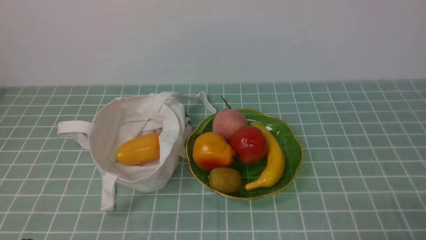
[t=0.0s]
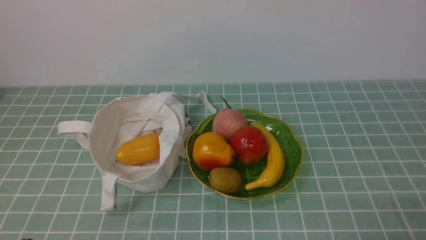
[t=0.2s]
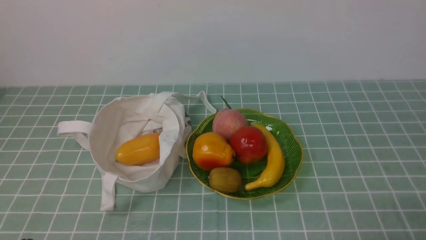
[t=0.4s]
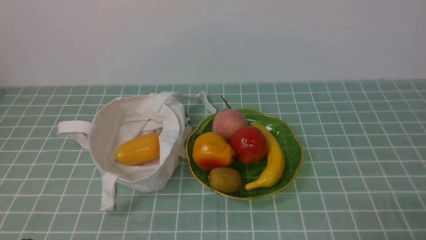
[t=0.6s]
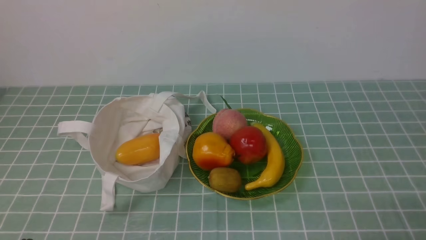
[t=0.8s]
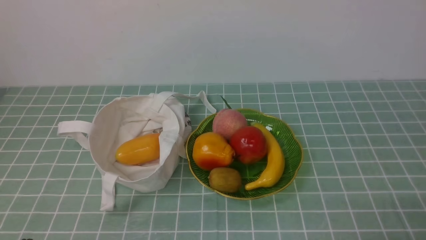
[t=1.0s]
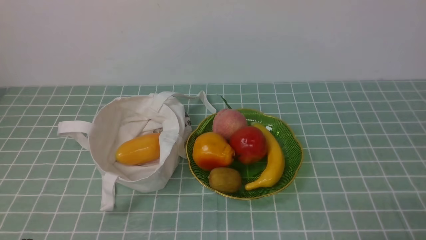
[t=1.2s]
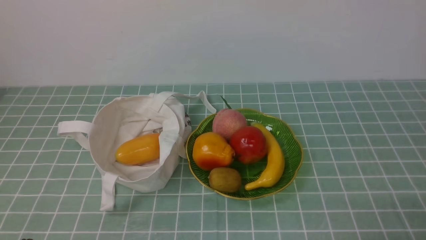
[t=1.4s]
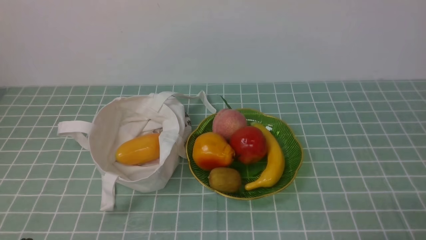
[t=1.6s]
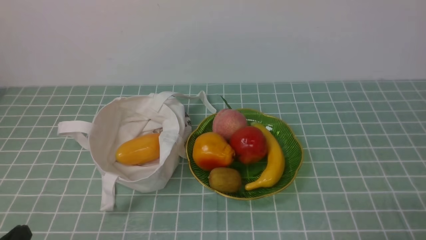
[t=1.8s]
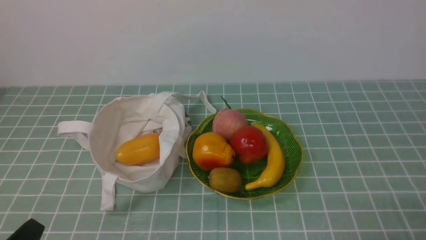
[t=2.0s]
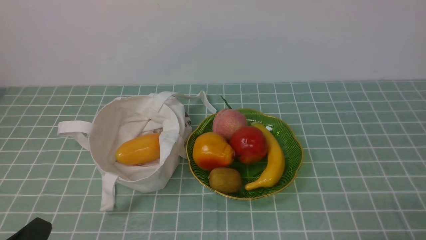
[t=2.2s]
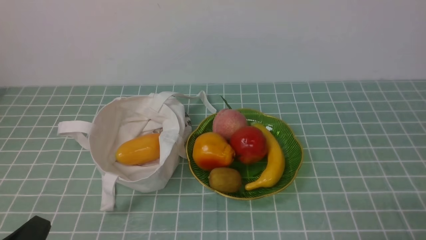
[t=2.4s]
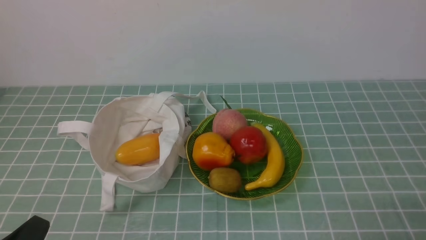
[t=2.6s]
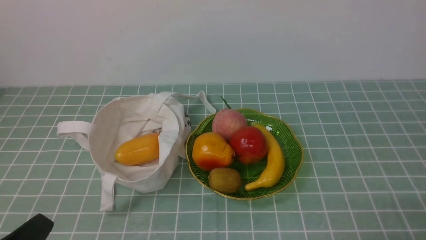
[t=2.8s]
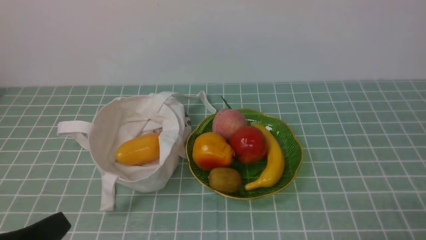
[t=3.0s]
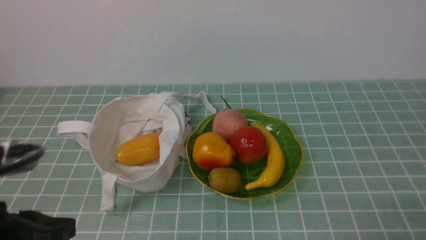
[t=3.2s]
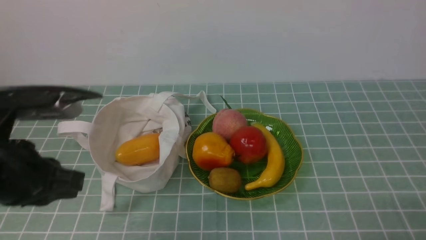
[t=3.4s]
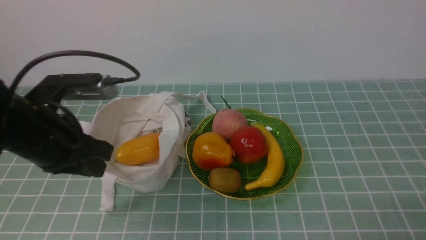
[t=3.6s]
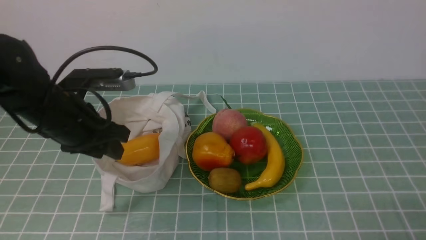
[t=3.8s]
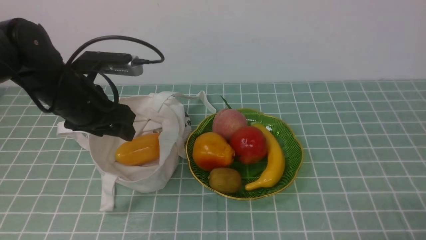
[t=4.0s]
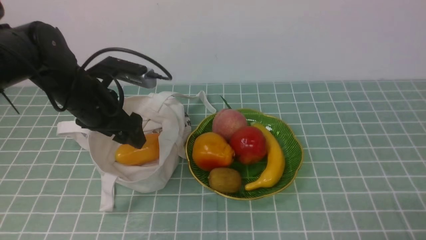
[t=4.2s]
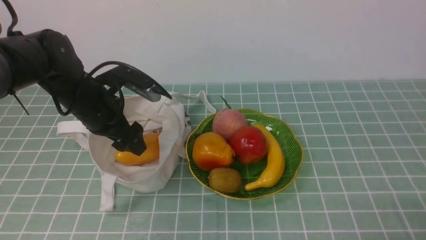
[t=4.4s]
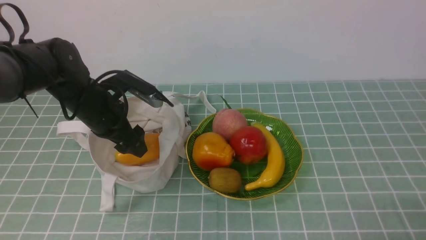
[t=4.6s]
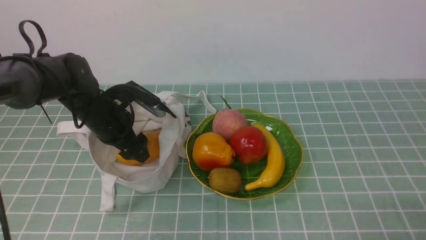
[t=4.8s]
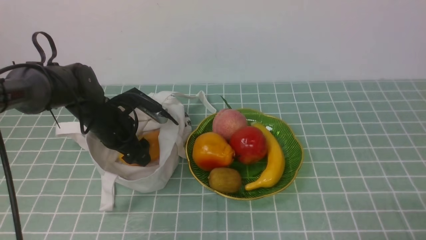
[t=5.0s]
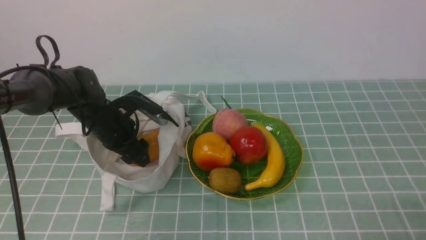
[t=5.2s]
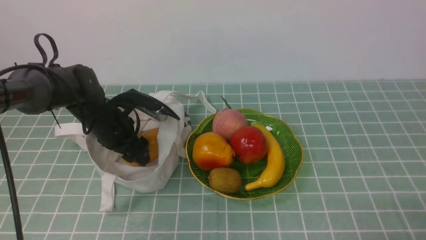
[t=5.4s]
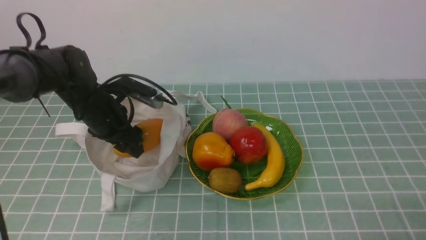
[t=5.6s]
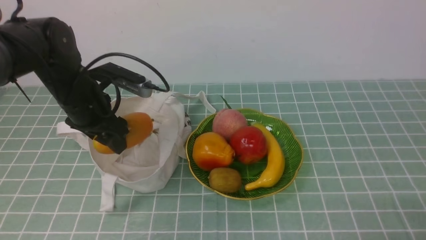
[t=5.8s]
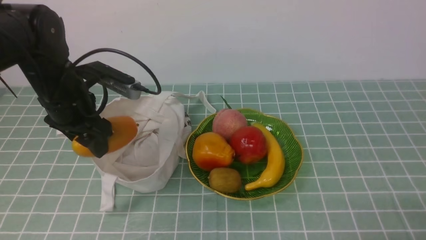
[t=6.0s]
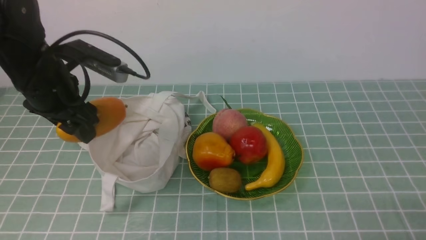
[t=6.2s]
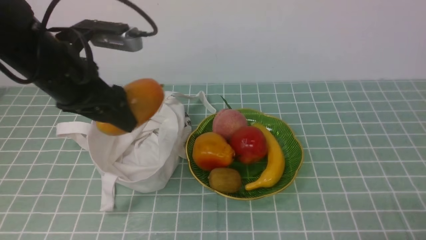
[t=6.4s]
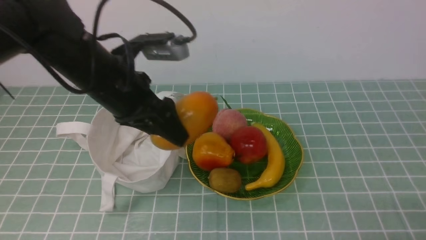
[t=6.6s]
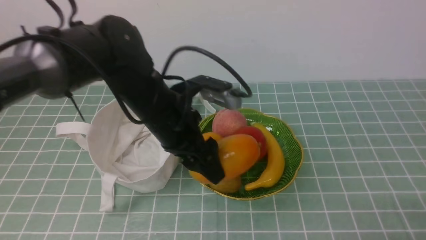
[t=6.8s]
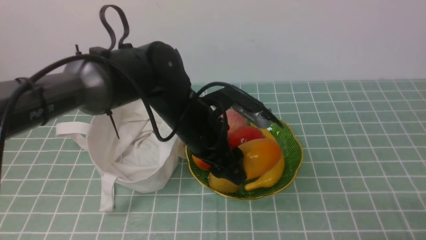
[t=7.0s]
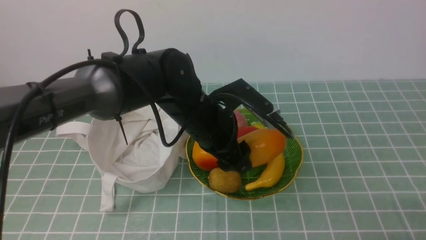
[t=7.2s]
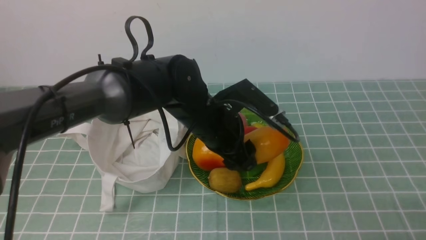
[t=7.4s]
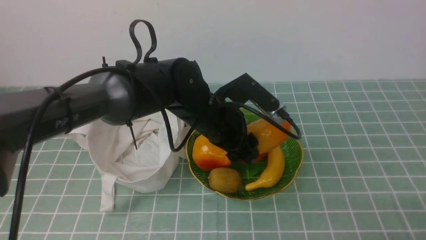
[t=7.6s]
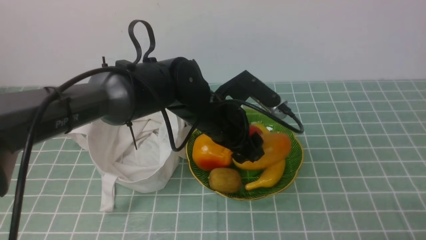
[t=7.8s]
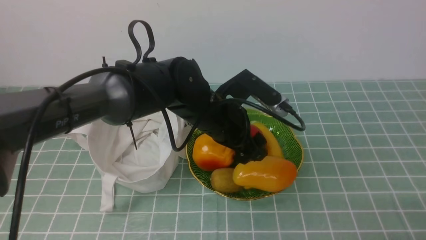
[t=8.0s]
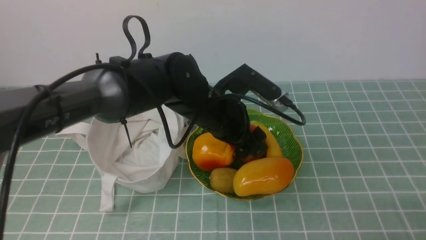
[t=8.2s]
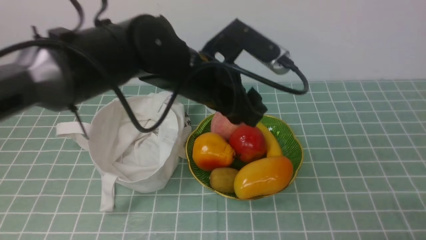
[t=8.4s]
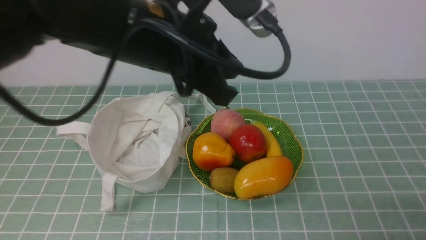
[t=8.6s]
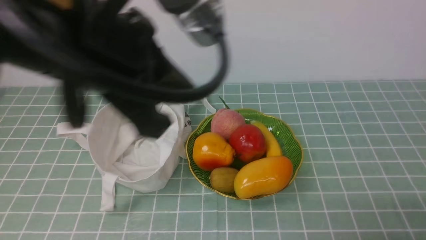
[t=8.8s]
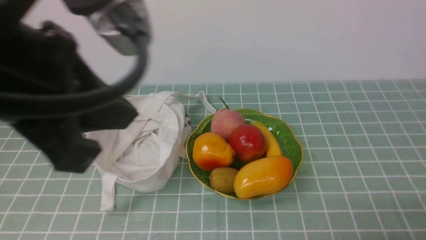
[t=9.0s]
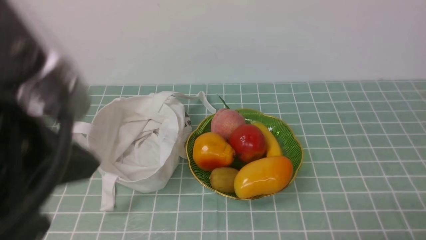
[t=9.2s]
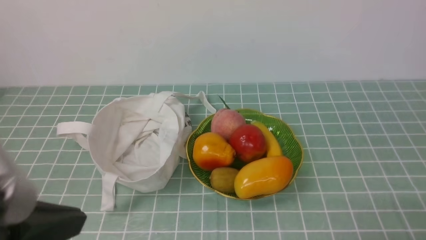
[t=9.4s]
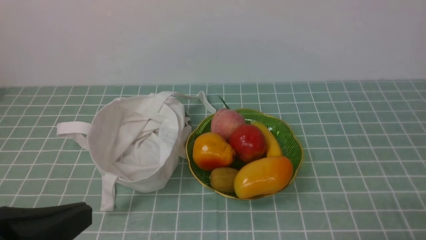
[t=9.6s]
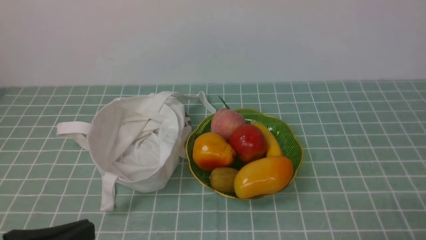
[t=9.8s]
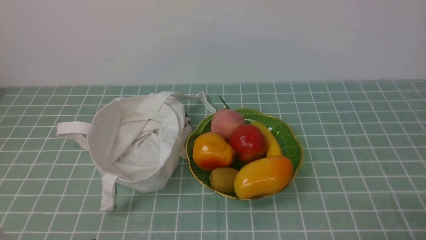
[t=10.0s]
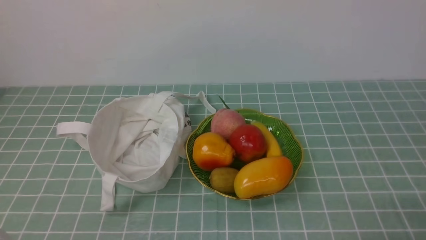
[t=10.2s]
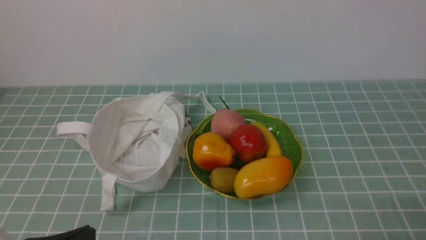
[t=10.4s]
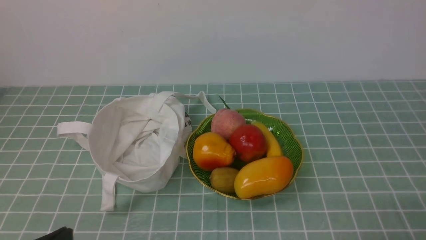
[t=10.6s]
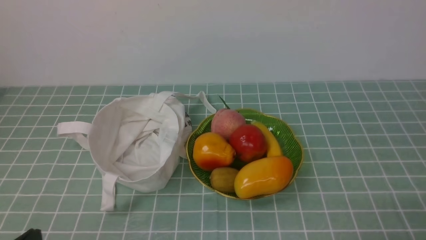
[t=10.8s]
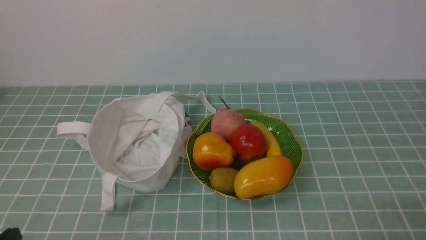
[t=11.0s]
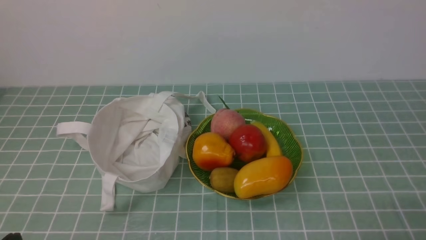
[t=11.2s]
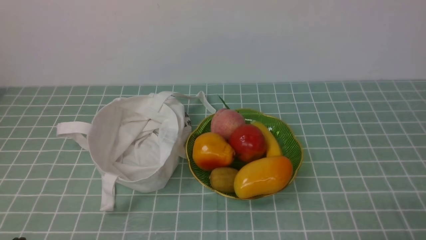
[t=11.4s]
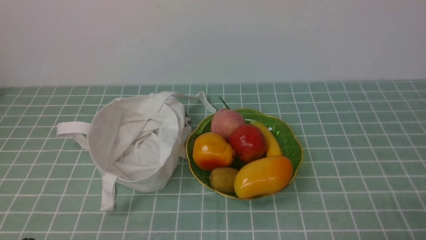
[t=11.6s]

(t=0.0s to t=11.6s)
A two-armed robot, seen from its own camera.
Step, t=0.0s - t=5.2s: use the left arm to grab a mango from the bag.
Step, t=5.4s - t=8.0s: use the left arm to put the mango into the empty plate on the right.
t=0.0s - t=1.4s: Neither gripper changes place.
t=1.4s - t=2.8s: The left gripper heads upward, covering approximately 5 cm.
t=2.8s - t=4.4s: The left gripper heads forward, covering some 30 cm, and opens.
t=4.4s - t=5.8s: The left gripper reaches some 5 cm downward, then returns.
t=5.8s - t=7.2s: The left gripper is displaced to the right by some 20 cm.
t=7.2s - t=8.8s: The left gripper travels upward, backward and to the left by some 25 cm, and closes its fingers.
t=8.8s - t=10.2s: The left gripper moves downward, backward and to the left, approximately 25 cm.

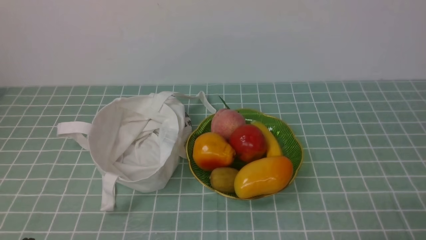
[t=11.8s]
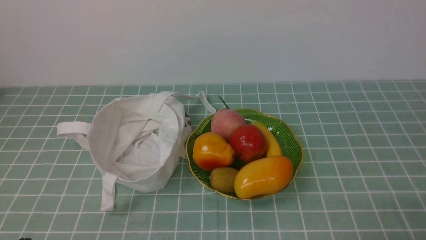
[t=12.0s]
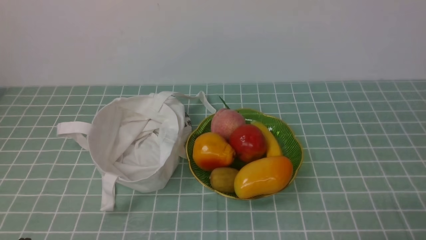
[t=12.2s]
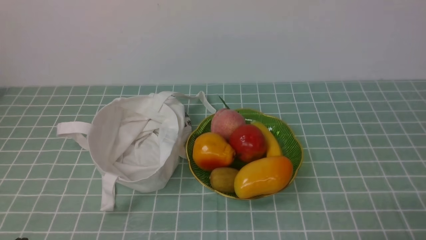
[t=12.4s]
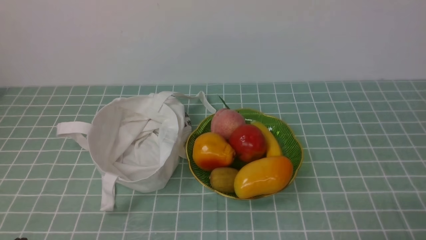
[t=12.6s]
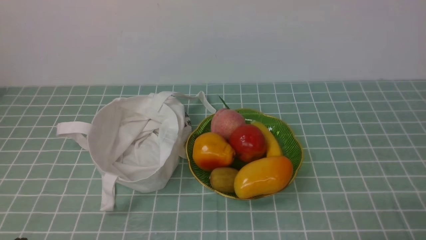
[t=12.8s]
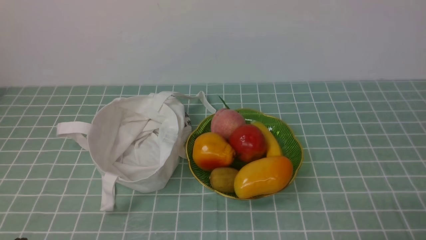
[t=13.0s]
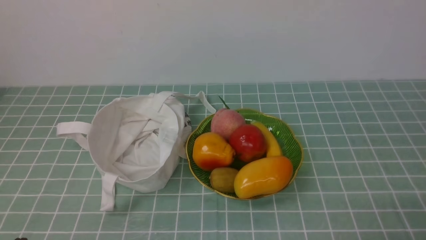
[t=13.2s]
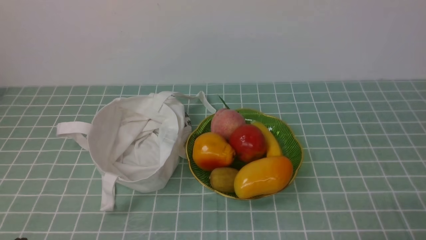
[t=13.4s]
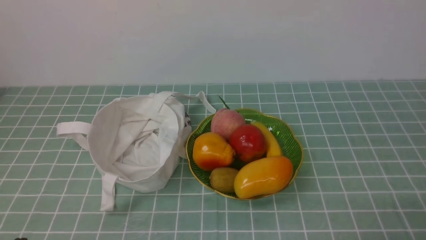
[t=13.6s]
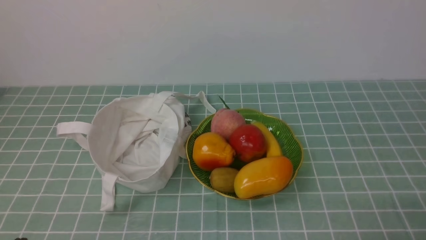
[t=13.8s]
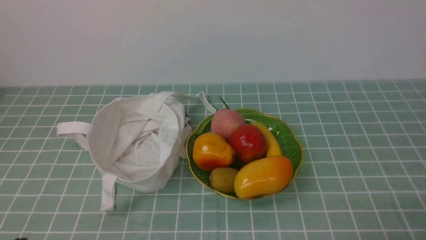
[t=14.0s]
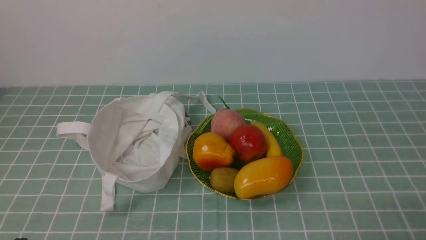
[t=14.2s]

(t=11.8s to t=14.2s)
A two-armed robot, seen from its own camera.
t=11.8s - t=14.2s: Neither gripper changes place.

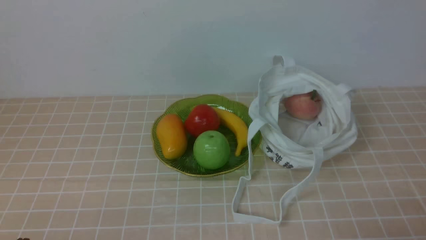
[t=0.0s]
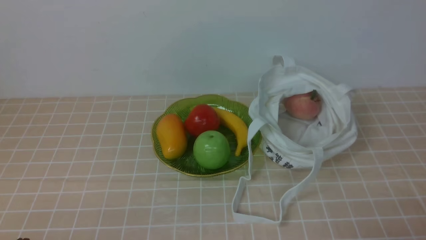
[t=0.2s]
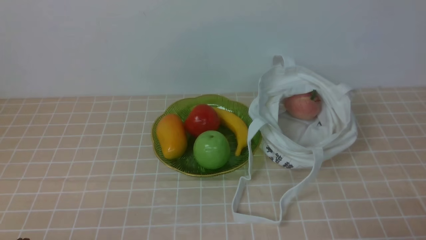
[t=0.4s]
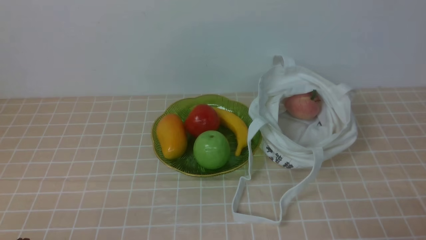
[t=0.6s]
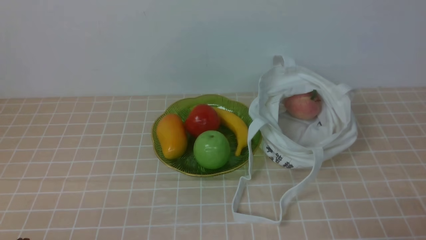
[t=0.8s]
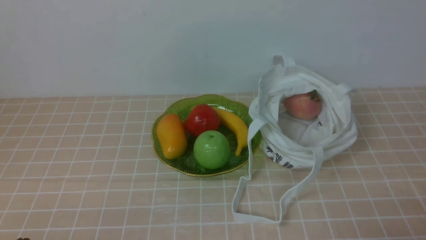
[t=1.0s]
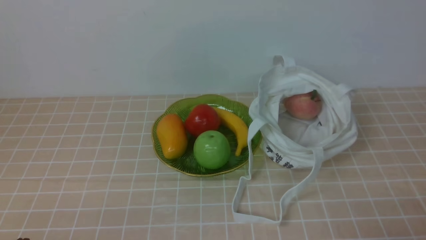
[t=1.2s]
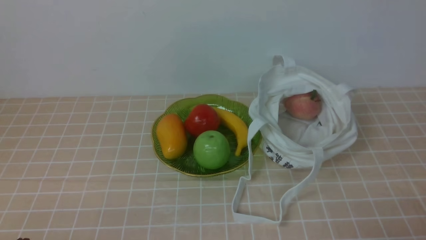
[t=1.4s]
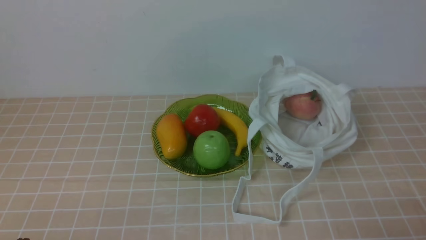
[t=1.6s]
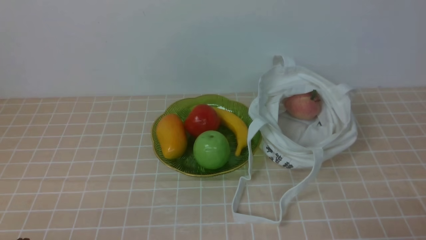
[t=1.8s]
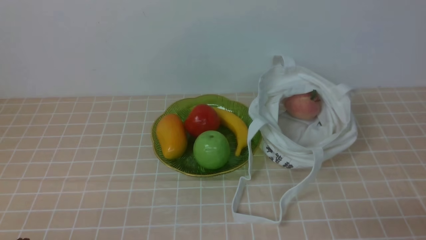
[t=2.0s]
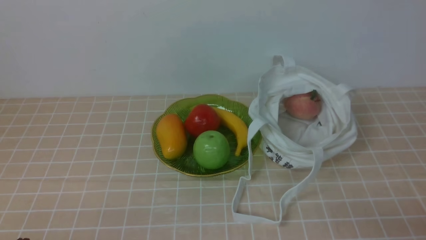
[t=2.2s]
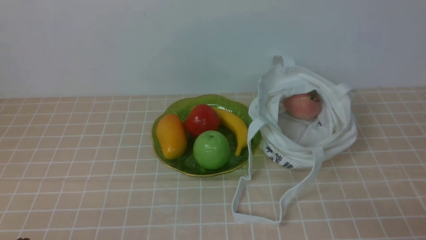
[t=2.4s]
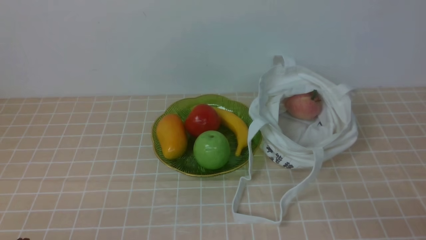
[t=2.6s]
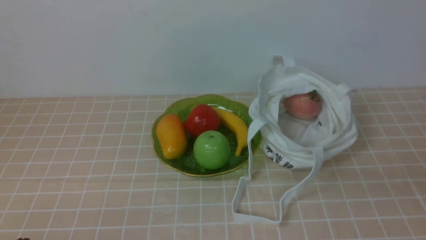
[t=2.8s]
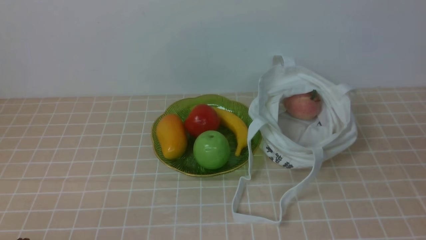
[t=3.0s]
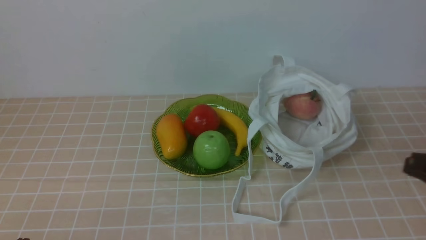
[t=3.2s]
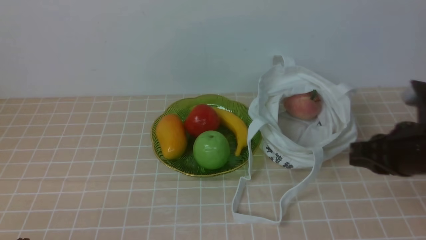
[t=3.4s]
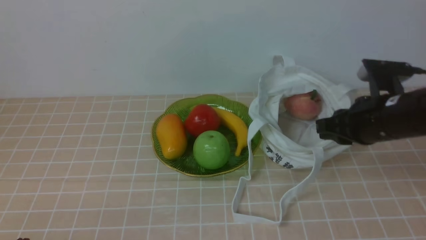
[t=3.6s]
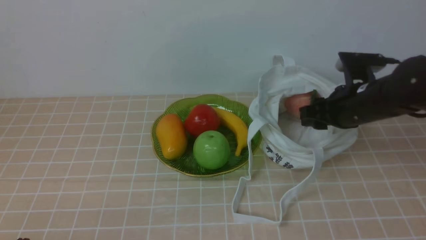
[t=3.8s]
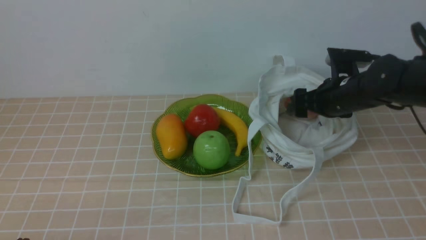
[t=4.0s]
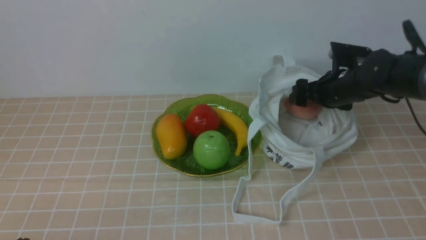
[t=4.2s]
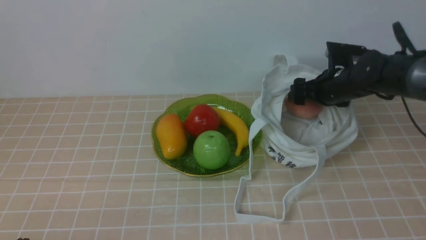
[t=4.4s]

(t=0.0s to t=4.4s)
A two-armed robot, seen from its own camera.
t=0.0s - t=1.4s: Both grippers stay put.
t=3.0s - t=4.4s: The right gripper goes roughly 35 cm forward, and opens up.
